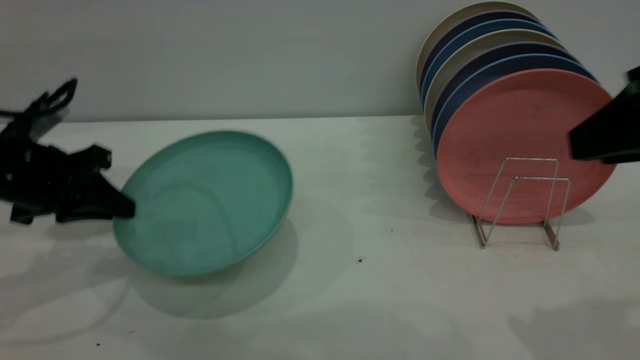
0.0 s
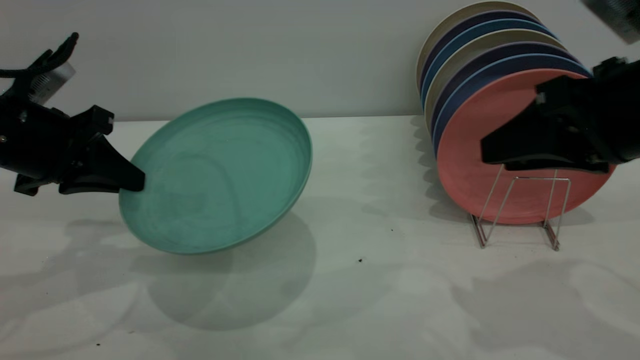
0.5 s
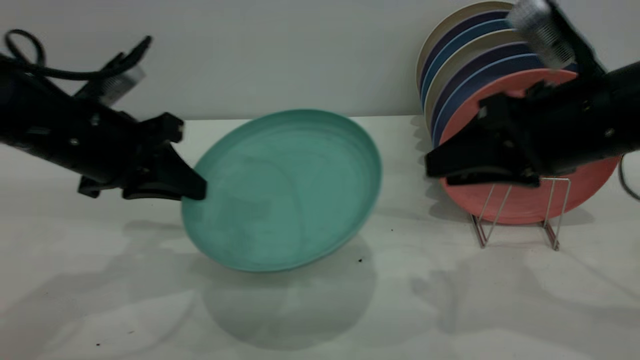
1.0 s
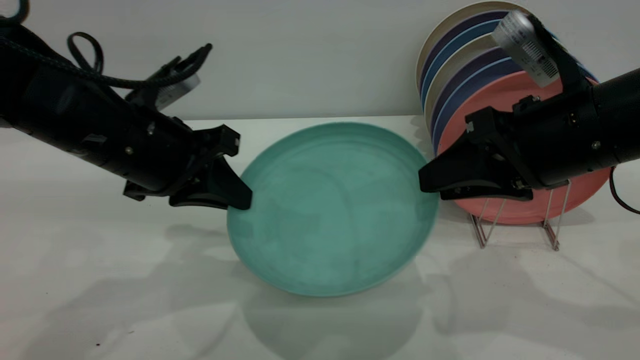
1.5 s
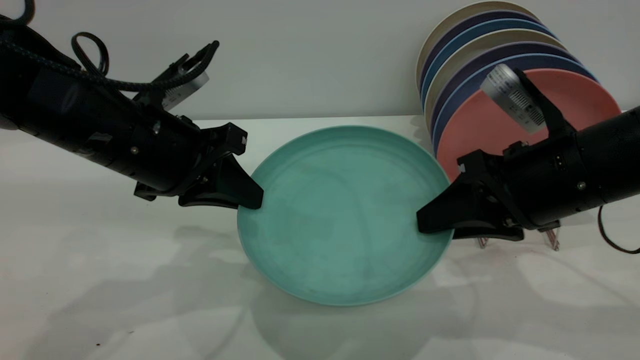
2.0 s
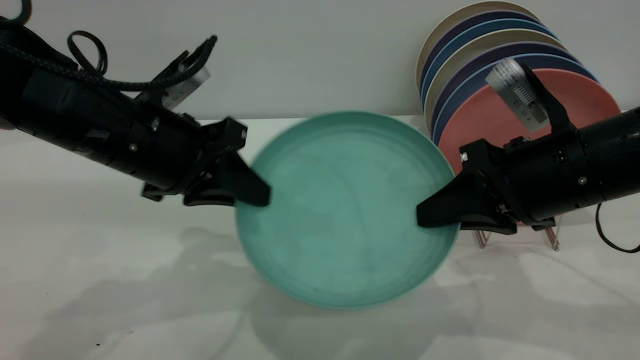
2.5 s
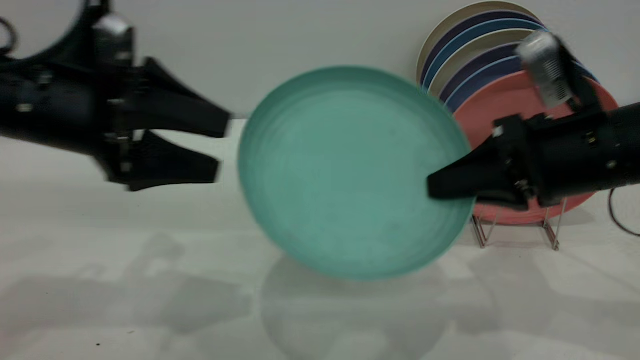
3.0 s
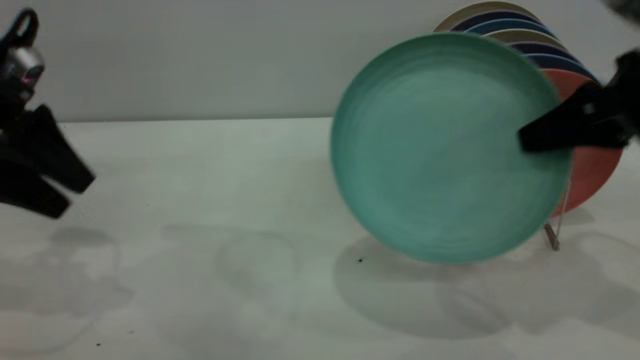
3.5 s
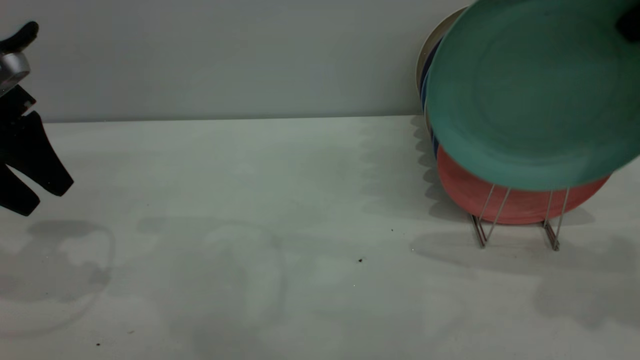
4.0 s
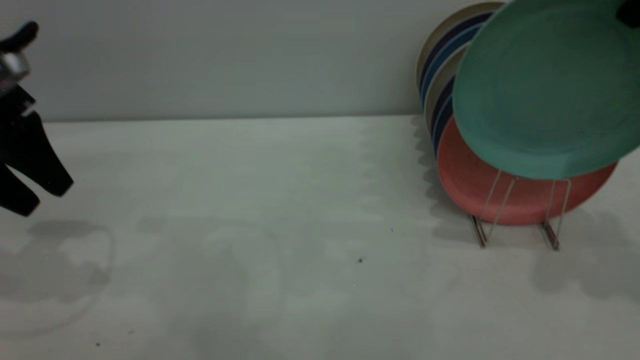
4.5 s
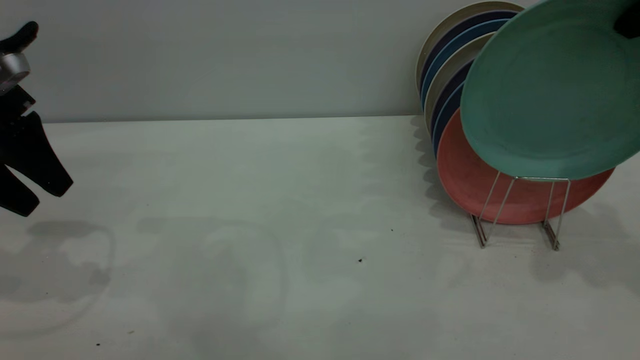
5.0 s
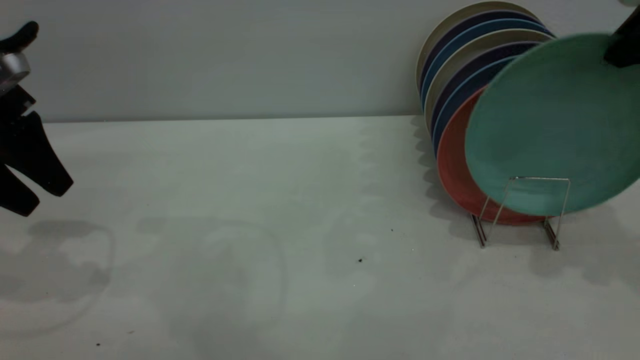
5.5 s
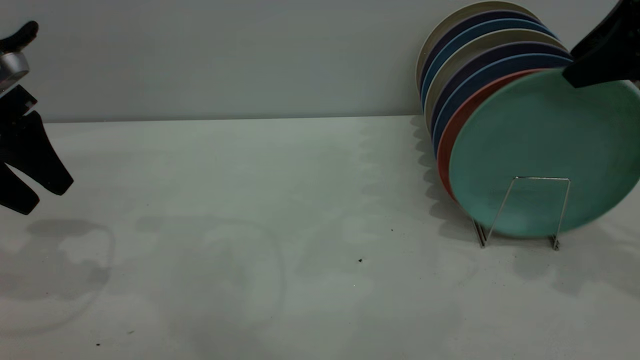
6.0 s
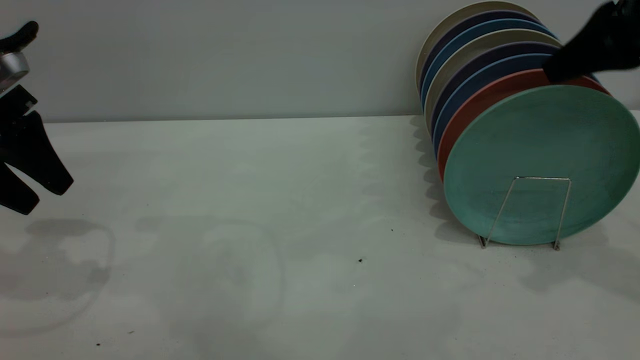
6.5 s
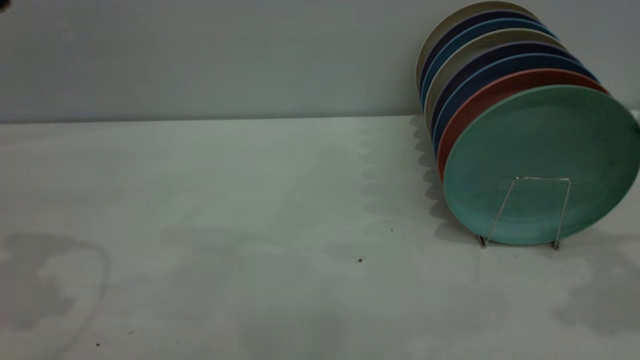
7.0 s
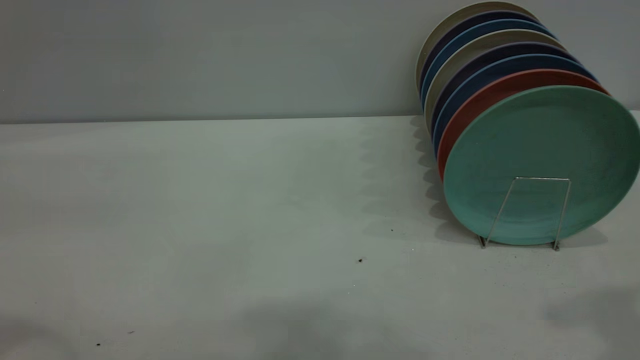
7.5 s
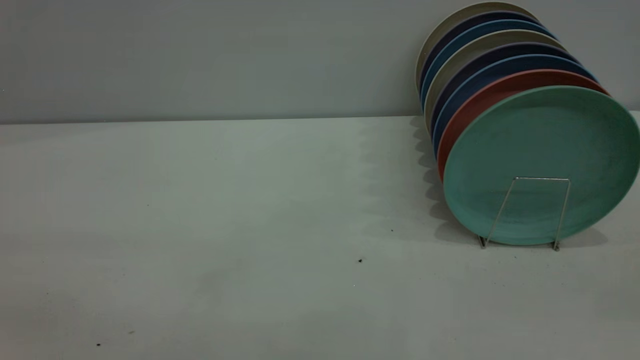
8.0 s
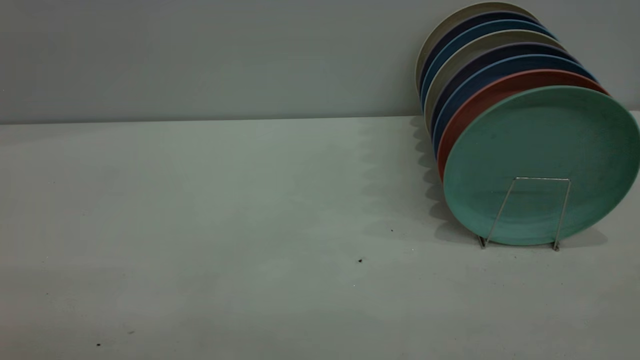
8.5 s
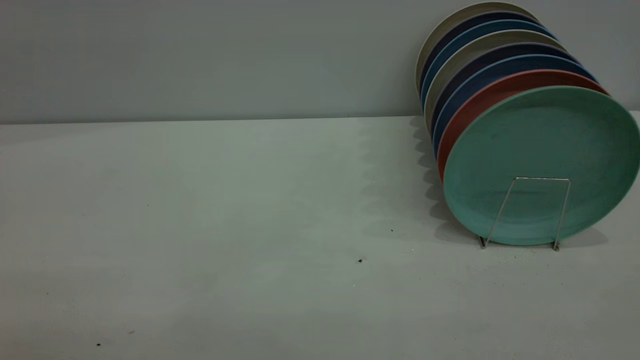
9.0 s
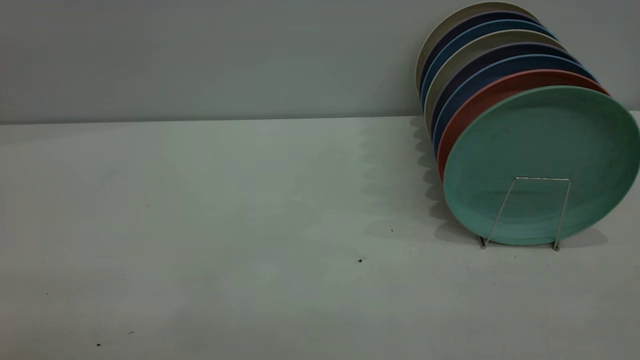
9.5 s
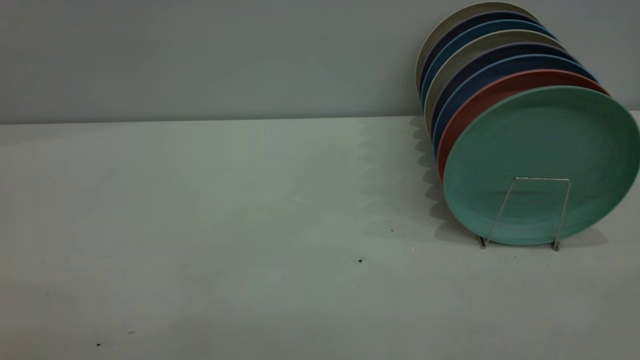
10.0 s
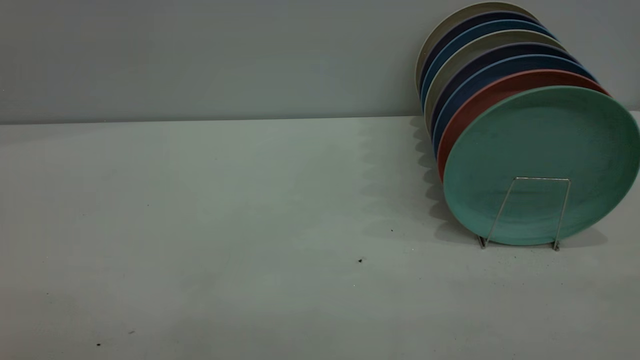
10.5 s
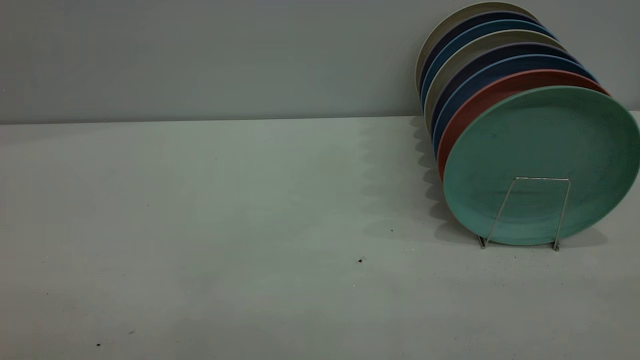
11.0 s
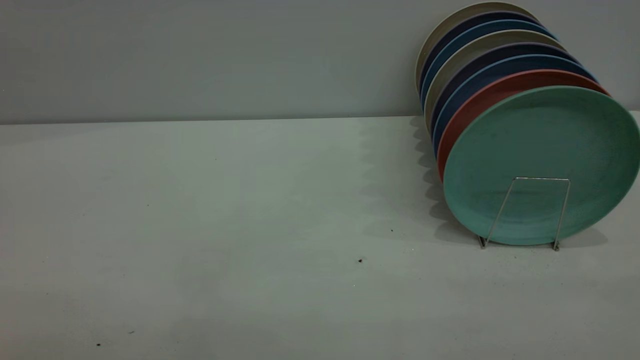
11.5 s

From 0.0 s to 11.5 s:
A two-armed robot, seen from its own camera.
Task of the whole recording: the left gripper grasp the green plate, the left gripper pass the green plate to the right gripper, and the right gripper place the green plate on the plate rack.
Step, from 0.5 s to 3.0 s: Pass the plate from the left gripper to the right gripper.
Step, from 3.5 s to 6.5 s: Place the plate on the shelf.
From 0.0 s to 2.0 s: The right gripper goes approximately 15 cm downward, forward and to the left, and closes. The left gripper travels to the right by roughly 15 cm.
From 2.0 s to 4.0 s: The right gripper moves upward and to the right, roughly 20 cm, and closes its fingers, while the left gripper moves to the left, some 15 cm, and opens.
From 4.0 s to 6.0 s: The right gripper heads forward, covering approximately 5 cm, and opens.
From 6.0 s to 7.5 s: The left gripper is displaced upward and backward by about 25 cm. Meanwhile the right gripper heads backward and upward, covering approximately 20 cm.

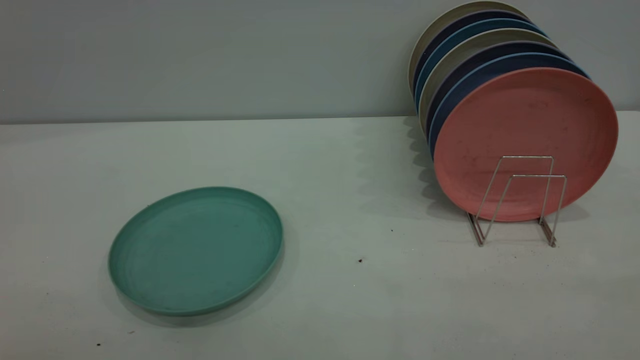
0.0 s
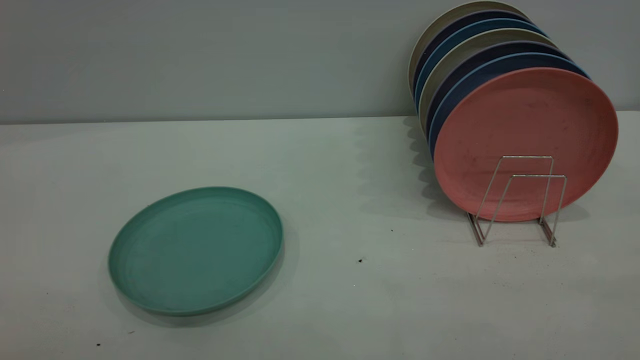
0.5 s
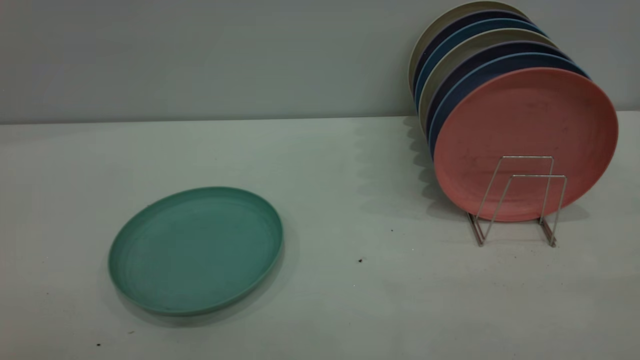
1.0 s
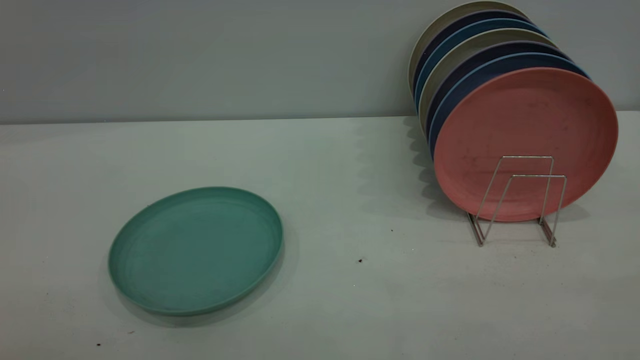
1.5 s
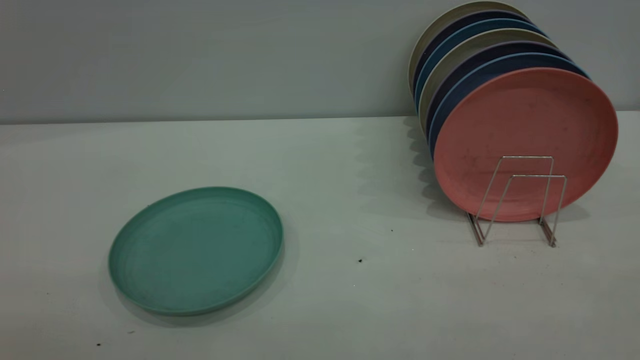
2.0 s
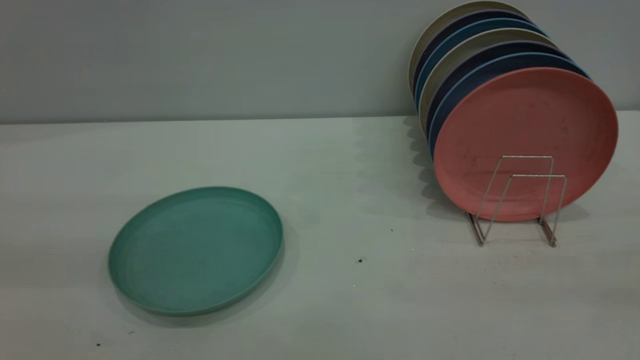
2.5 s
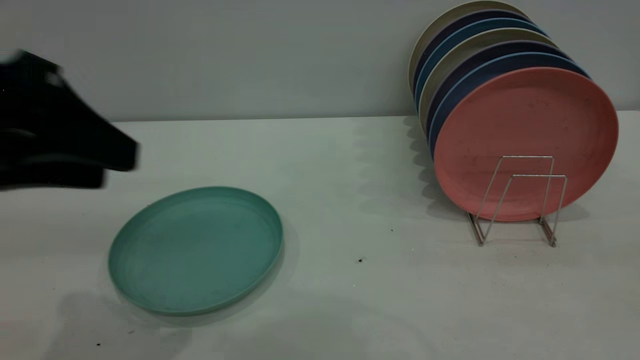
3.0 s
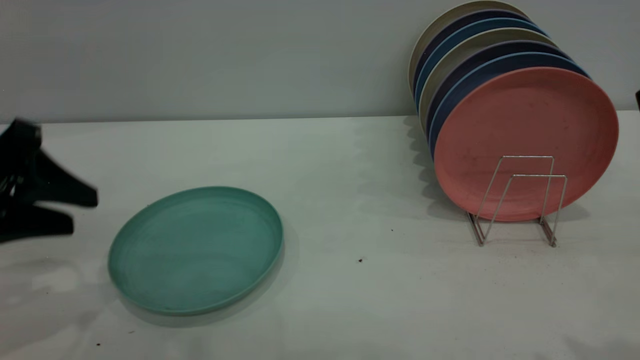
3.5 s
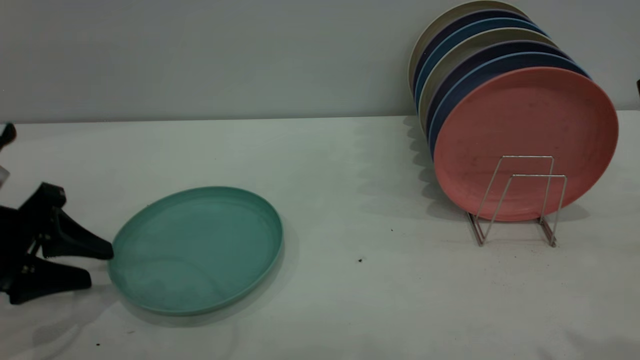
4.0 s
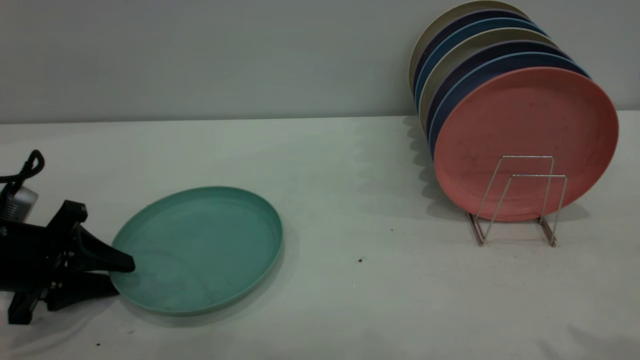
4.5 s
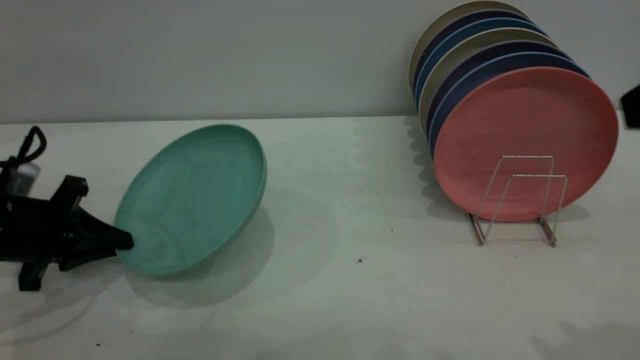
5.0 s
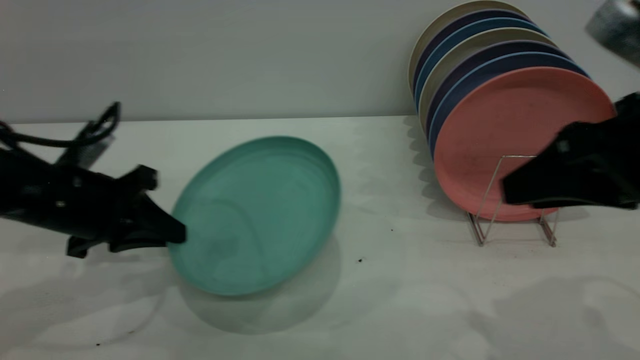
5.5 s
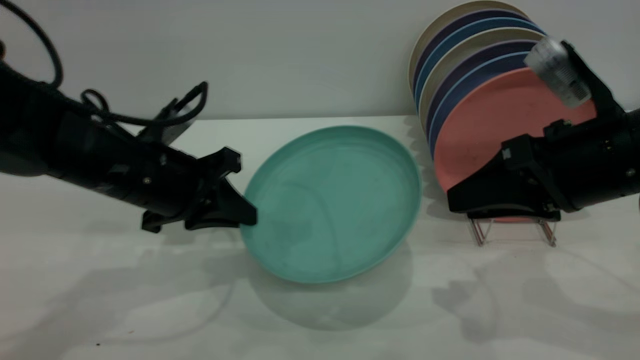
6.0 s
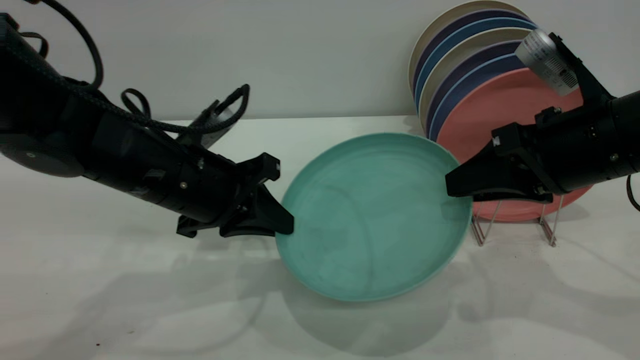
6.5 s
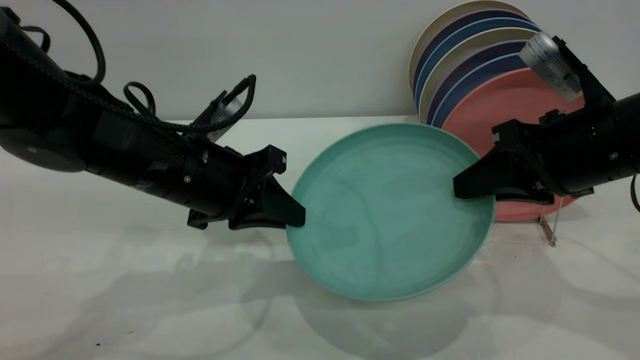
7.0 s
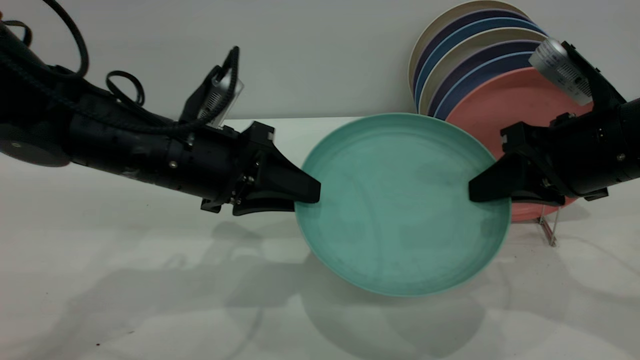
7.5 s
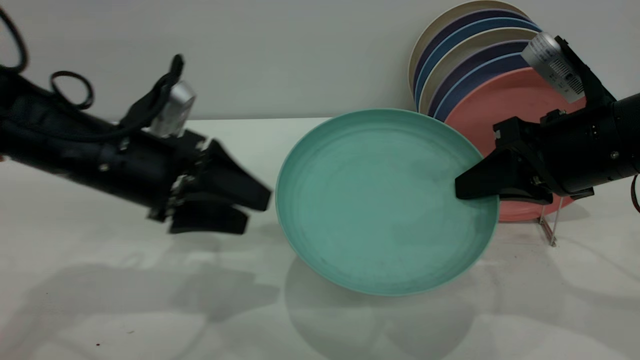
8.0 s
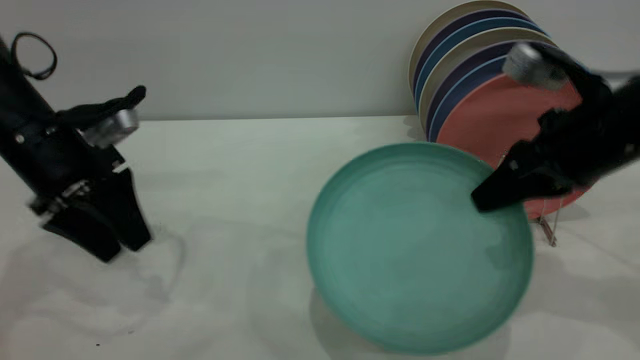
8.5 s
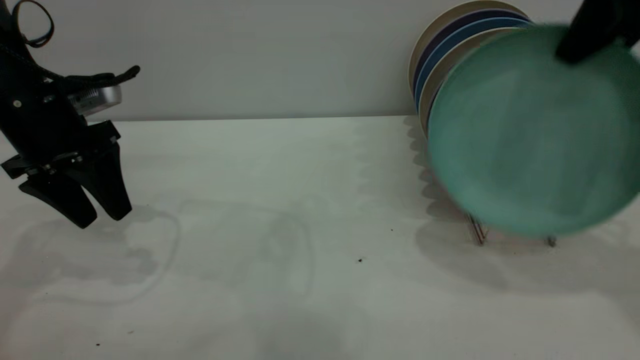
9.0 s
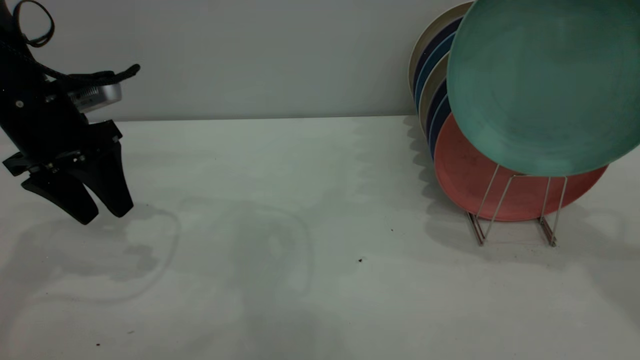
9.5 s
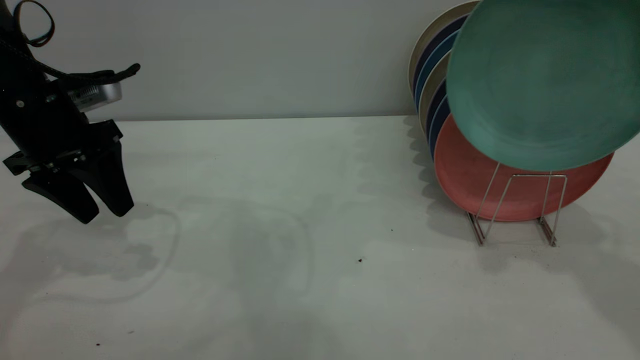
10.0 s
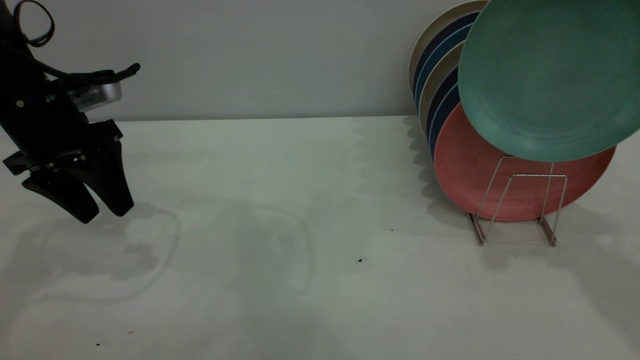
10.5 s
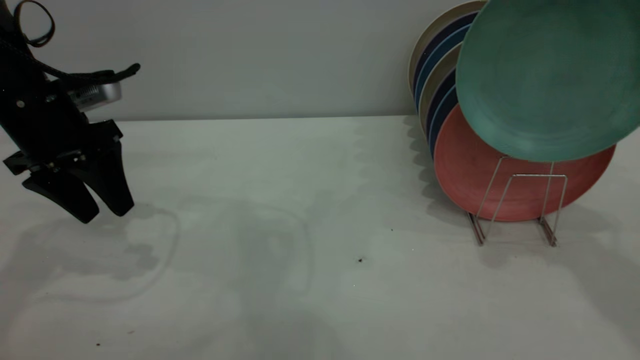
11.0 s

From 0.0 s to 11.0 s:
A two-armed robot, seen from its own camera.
Task of the whole recording: the left gripper grasp the green plate, the left gripper pass the green plate to the right gripper, and the right gripper place the green plate on the plate rack.
Step, from 0.0 s to 5.5 s: Pick up the plate with the left gripper.
Step, from 6.0 s to 8.0 s: Pass the plate from the left gripper to the right gripper.
From 2.0 s to 3.5 s: The left gripper shifts approximately 35 cm forward and downward.
From 3.5 s to 5.5 s: The left gripper shifts some 10 cm to the right, downward and forward, and closes up. The right gripper heads downward and forward, covering roughly 15 cm.
From 5.5 s to 7.5 s: The left gripper moves to the right, some 10 cm, and opens up; the right gripper moves forward, some 5 cm, and closes up.
From 7.5 s to 9.0 s: The right gripper shifts roughly 15 cm upward and forward. Meanwhile the left gripper shifts some 15 cm to the left and forward, and opens its fingers.
